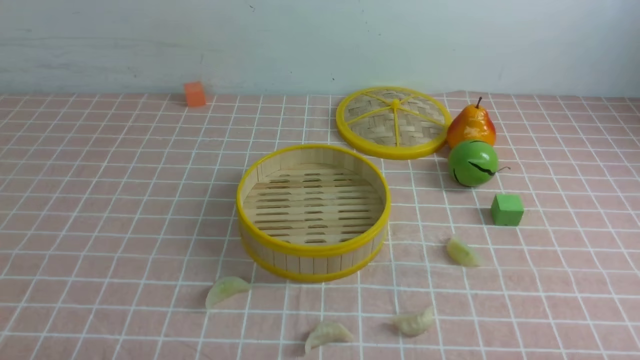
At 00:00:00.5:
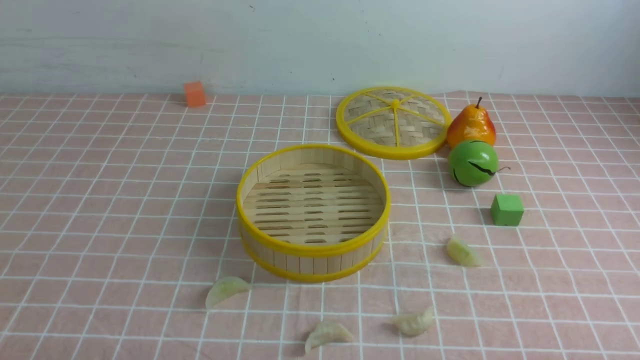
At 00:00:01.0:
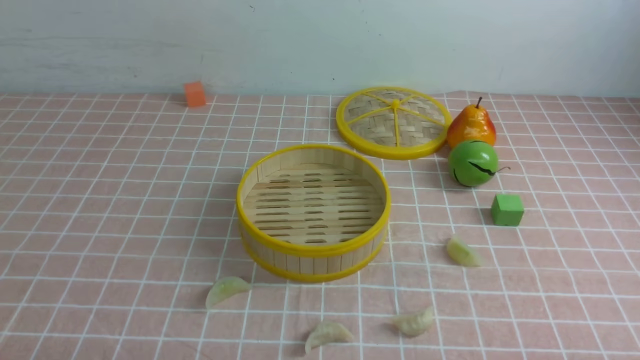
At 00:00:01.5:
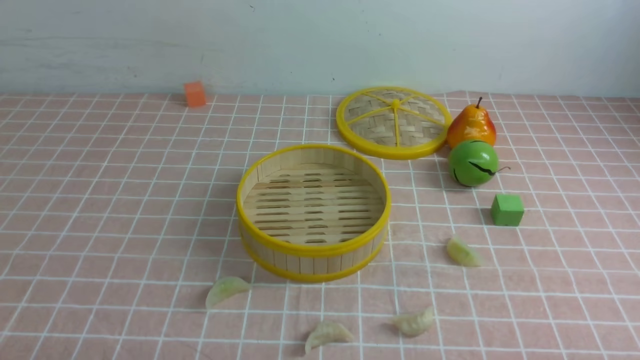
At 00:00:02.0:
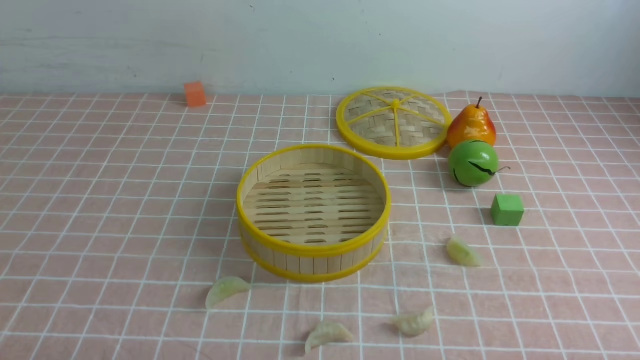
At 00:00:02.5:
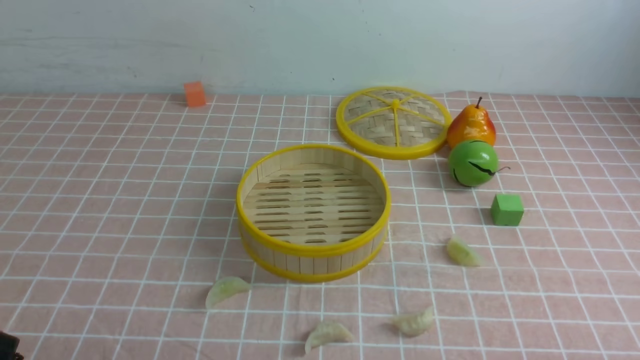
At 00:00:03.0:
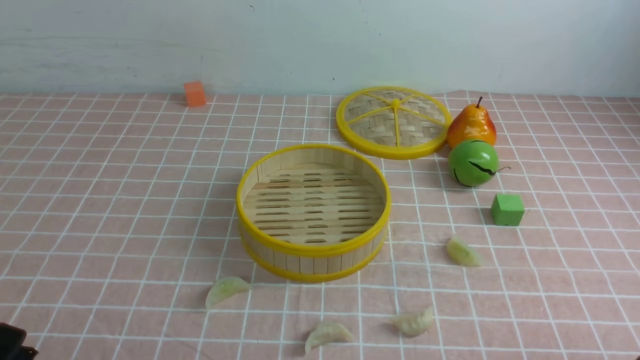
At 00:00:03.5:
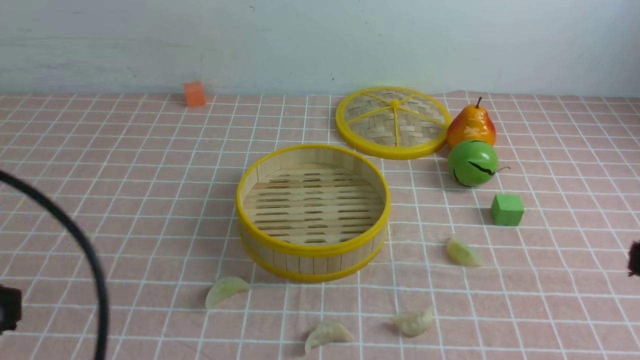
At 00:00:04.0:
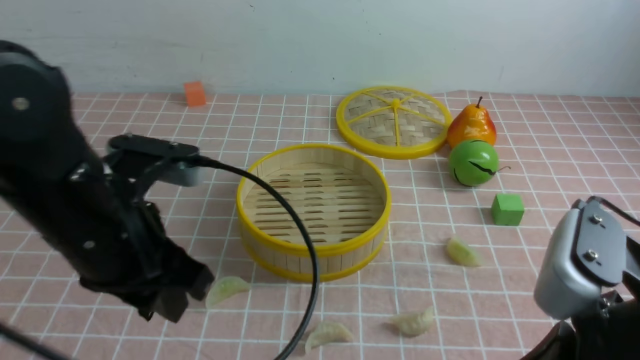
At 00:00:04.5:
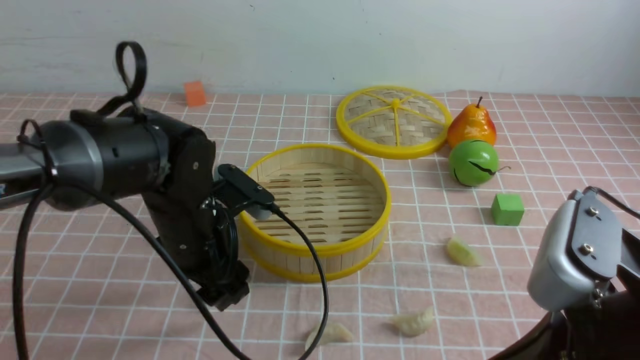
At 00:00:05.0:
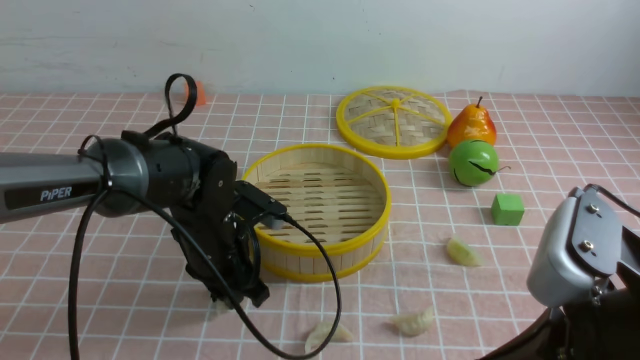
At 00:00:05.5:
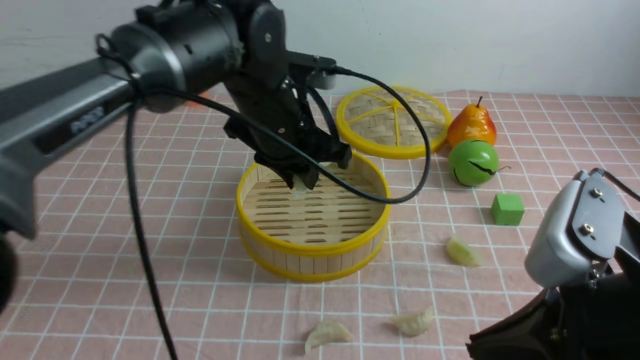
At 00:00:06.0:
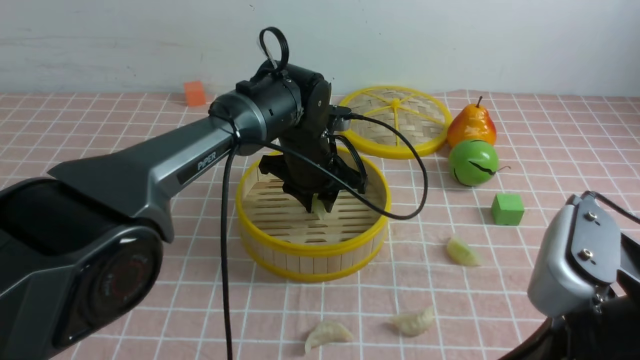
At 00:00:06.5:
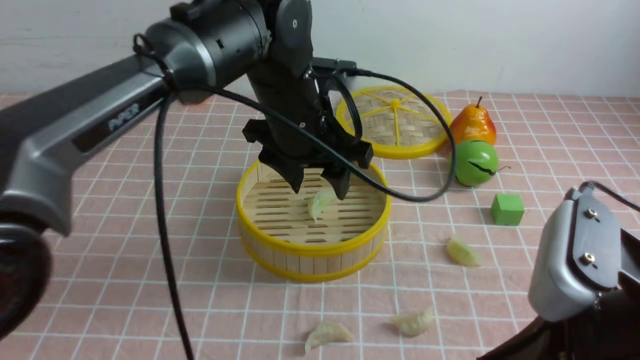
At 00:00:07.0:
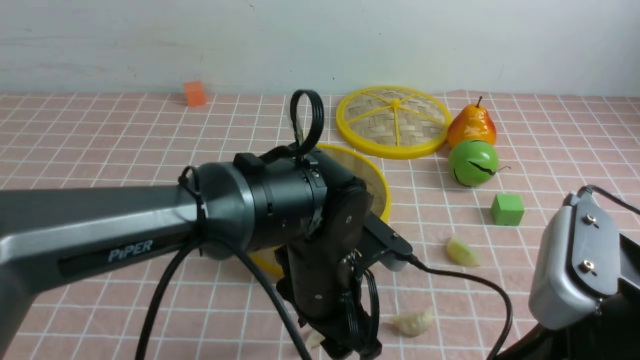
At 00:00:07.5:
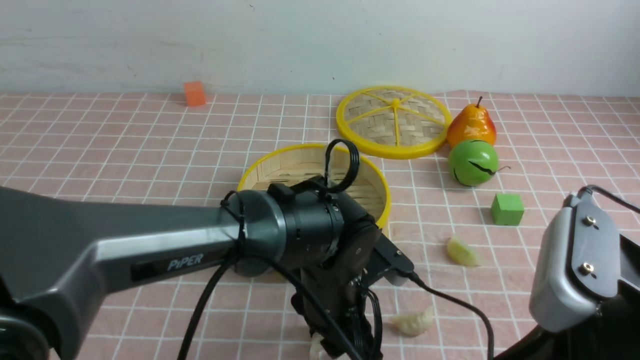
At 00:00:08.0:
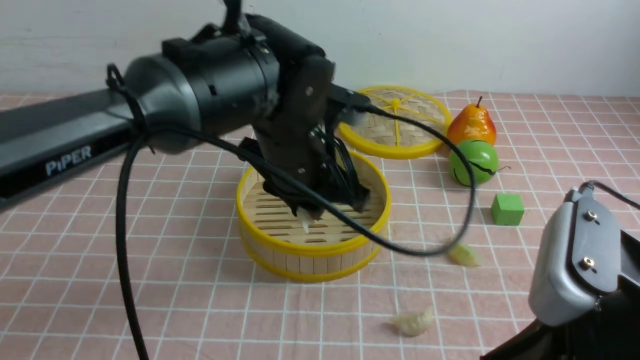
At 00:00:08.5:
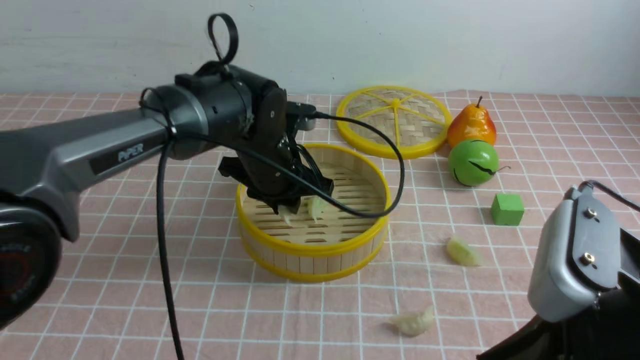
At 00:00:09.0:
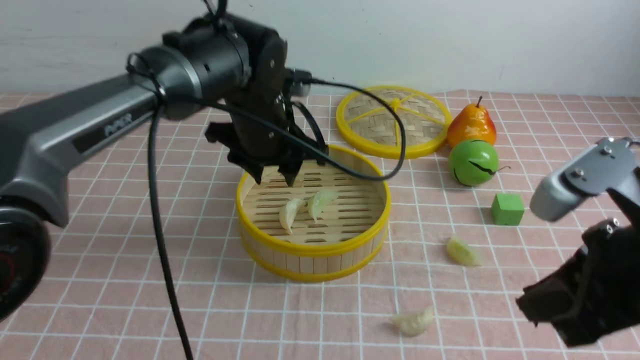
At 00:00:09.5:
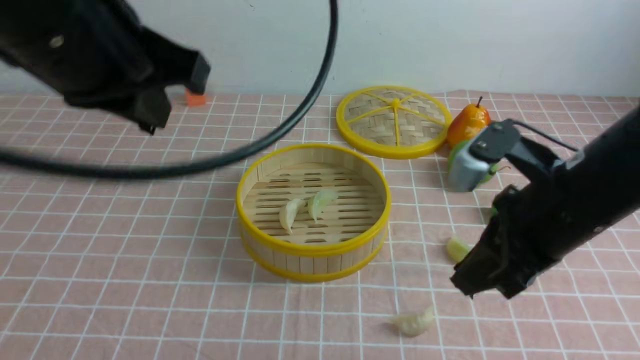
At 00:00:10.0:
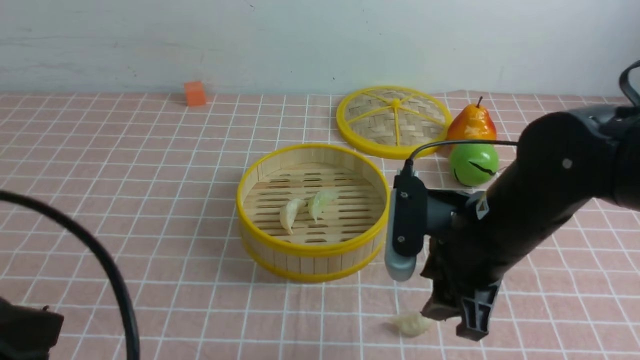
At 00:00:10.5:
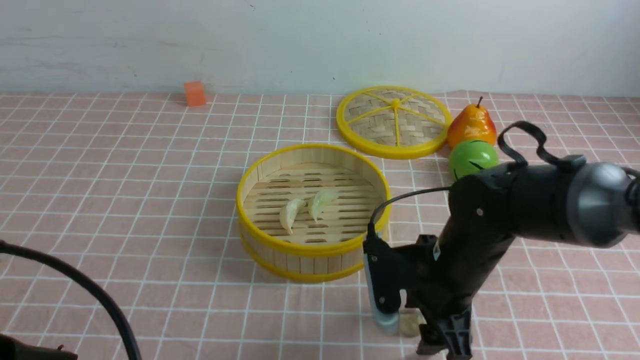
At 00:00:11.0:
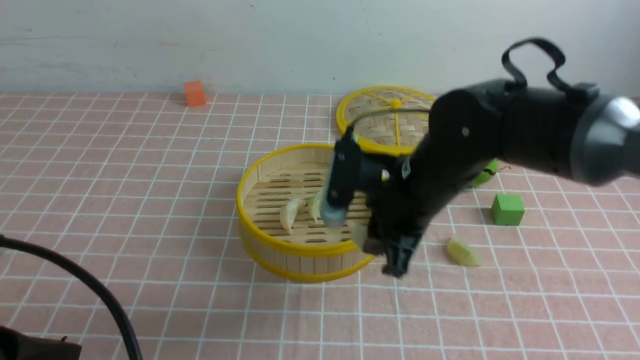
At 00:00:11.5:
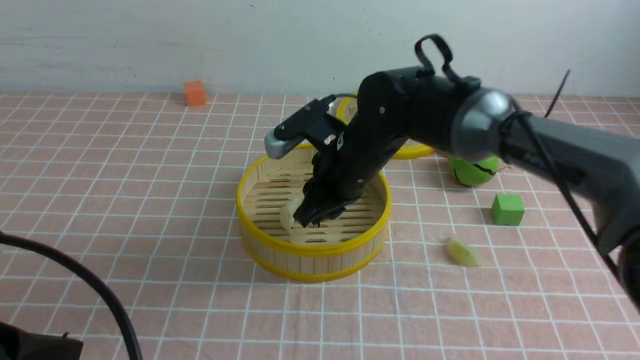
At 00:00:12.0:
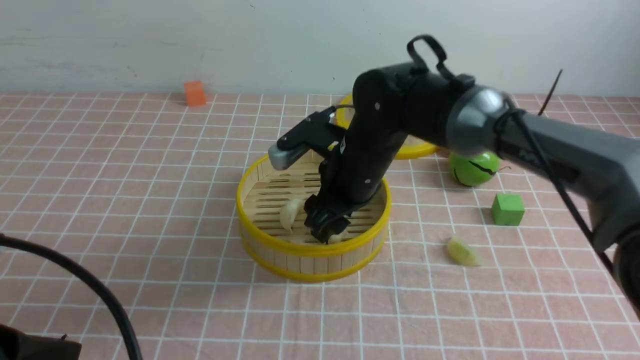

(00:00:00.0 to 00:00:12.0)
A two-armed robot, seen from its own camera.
Task of the whole recording: put the dumplings into the steamer on the table with the pink tablecloth.
Step, 00:00:00.0 - 00:00:05.0: use the left arm to grab a dumpling.
Step, 00:00:05.5 - 00:00:06.0: use the left arm to put the dumpling into the steamer.
Step, 00:00:06.5 - 00:00:07.0: use the left arm to grab a dumpling.
Step, 00:00:07.5 - 00:00:08.5: use the left arm to put the dumpling into the steamer.
Step, 00:00:09.0 - 00:00:10.5: use the right arm to grab a dumpling.
Step, 00:00:11.0 - 00:00:12.0: use the right arm to put the dumpling into the steamer.
00:00:02.0 - 00:00:04.0: The right gripper is displaced upward, to the left and forward by some 20 cm, and closes up. The left gripper moves forward, upward and to the right, approximately 25 cm.
00:00:04.0 - 00:00:06.0: The left gripper heads forward, to the right and downward, covering roughly 30 cm, and opens, then closes once more.
00:00:06.0 - 00:00:08.0: The left gripper moves backward and upward, roughly 15 cm, and opens and closes again.
00:00:08.0 - 00:00:10.0: The right gripper shifts approximately 15 cm forward, and opens, while the left gripper moves backward, to the left and upward, approximately 30 cm, and closes.
00:00:10.0 - 00:00:12.0: The right gripper goes roughly 15 cm forward and to the left.

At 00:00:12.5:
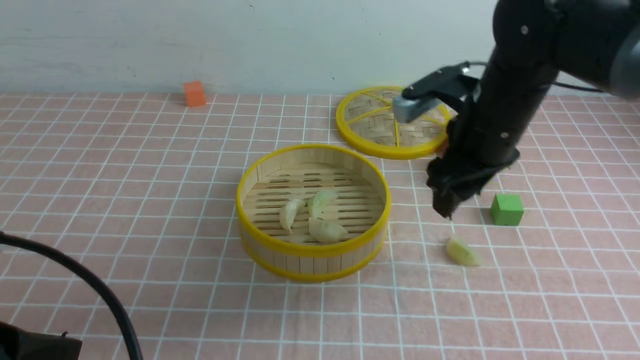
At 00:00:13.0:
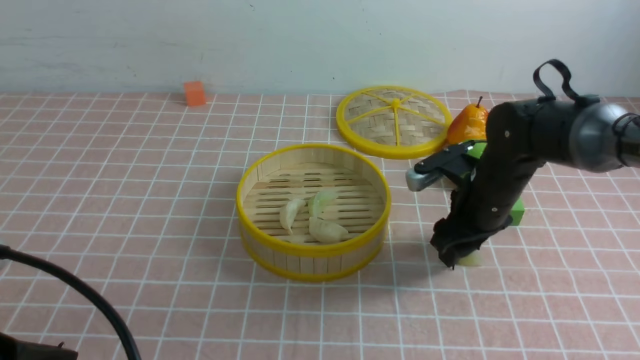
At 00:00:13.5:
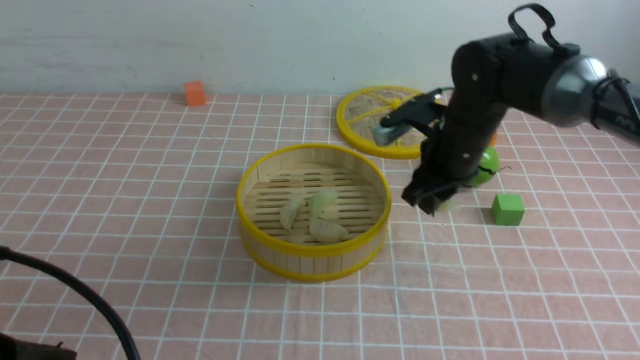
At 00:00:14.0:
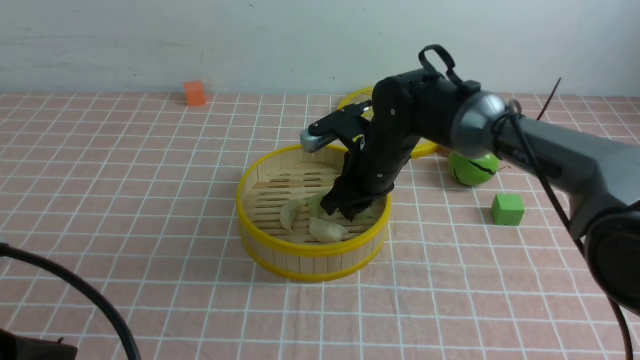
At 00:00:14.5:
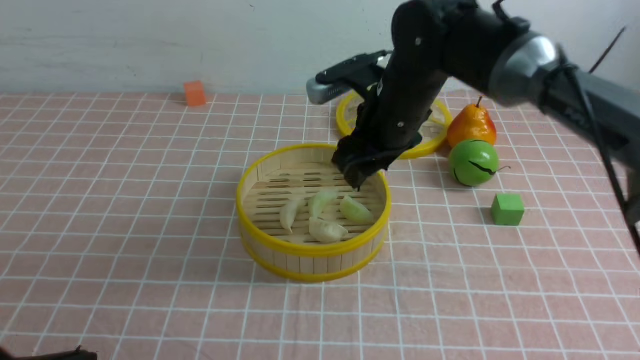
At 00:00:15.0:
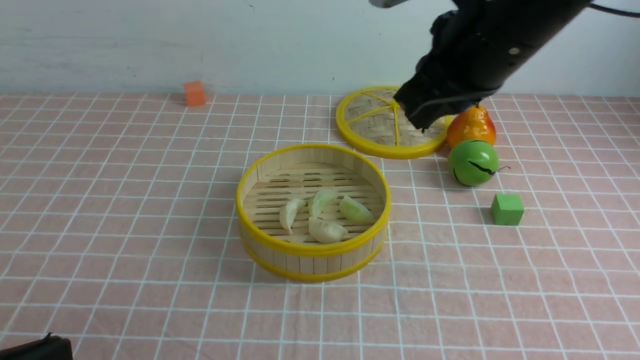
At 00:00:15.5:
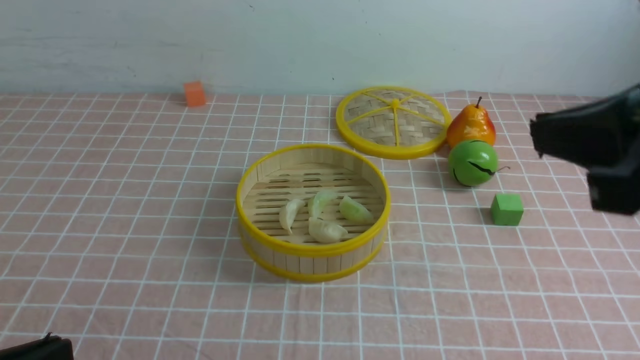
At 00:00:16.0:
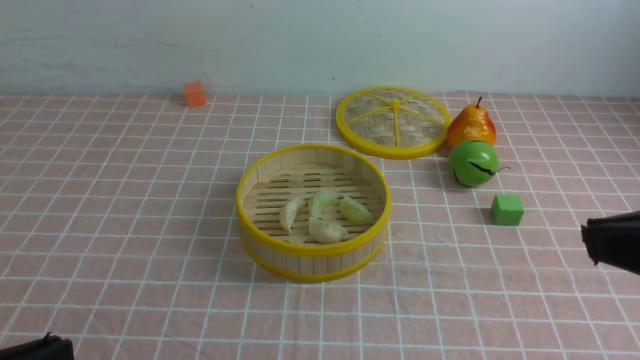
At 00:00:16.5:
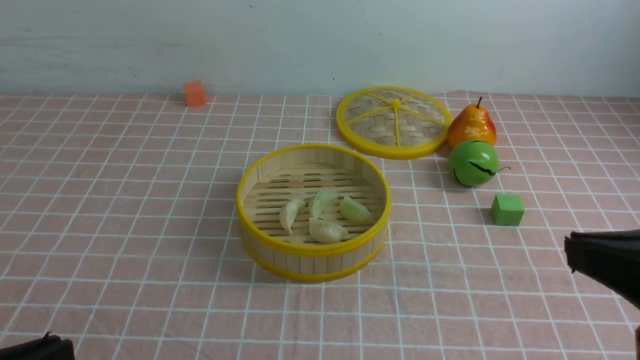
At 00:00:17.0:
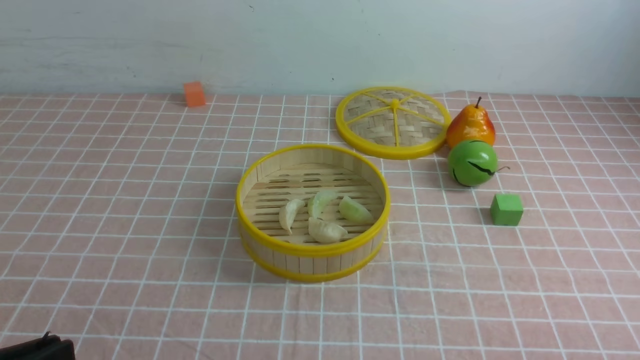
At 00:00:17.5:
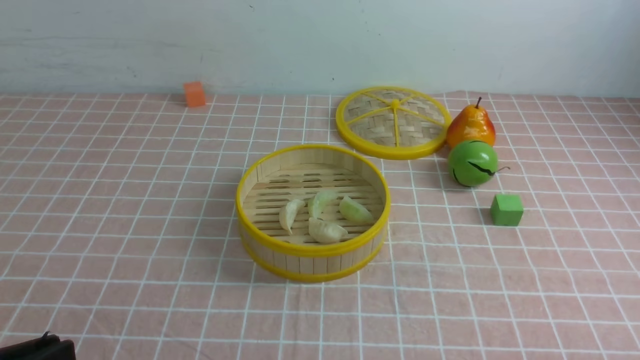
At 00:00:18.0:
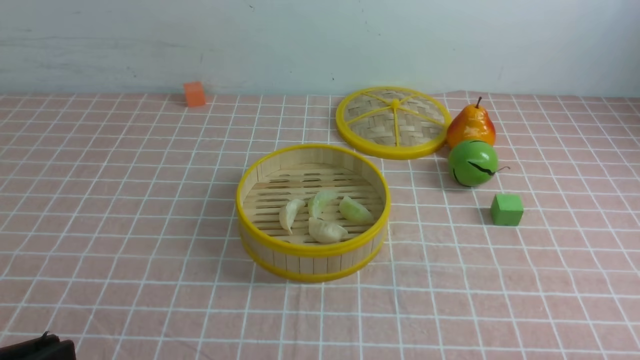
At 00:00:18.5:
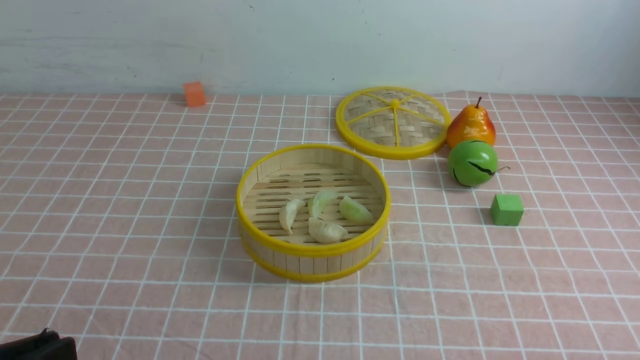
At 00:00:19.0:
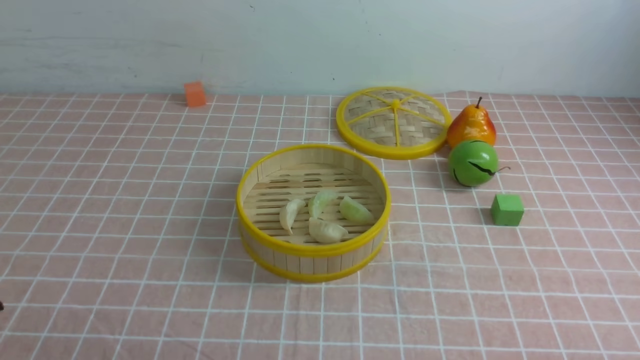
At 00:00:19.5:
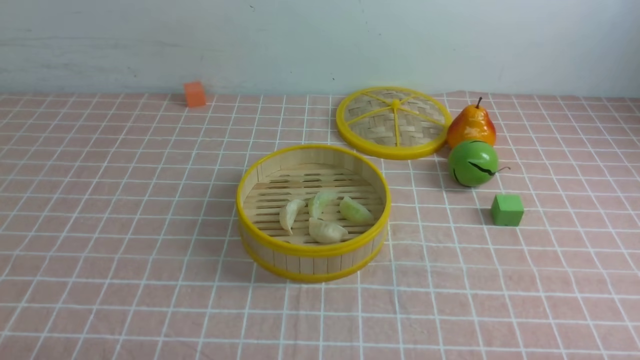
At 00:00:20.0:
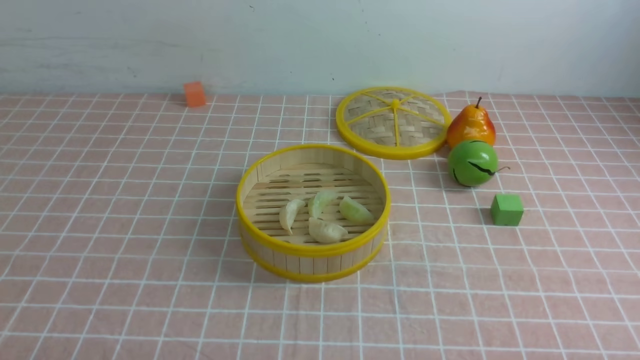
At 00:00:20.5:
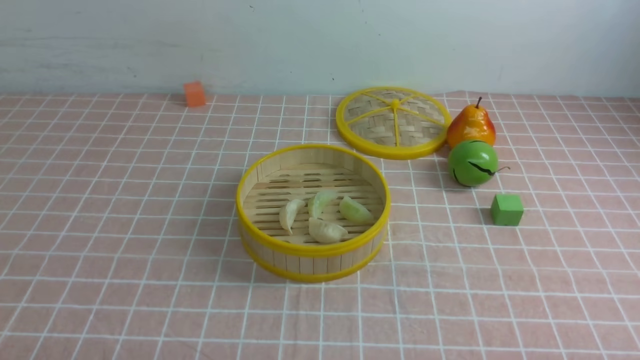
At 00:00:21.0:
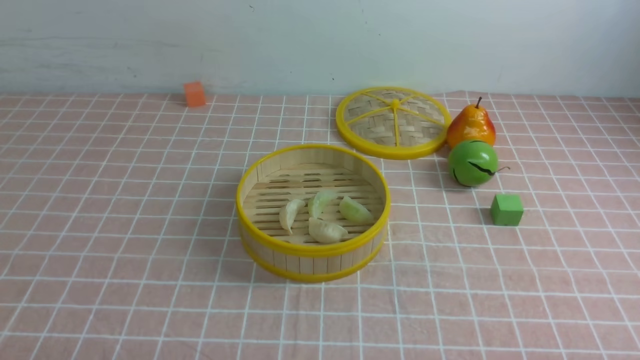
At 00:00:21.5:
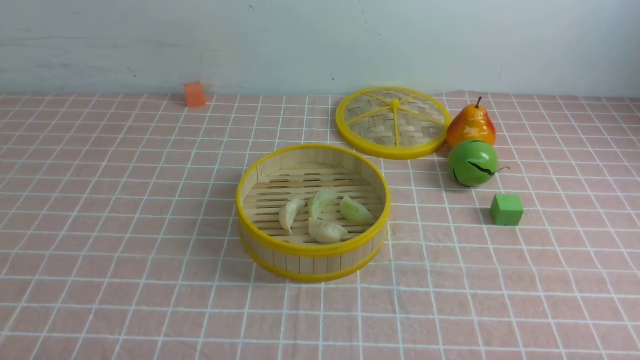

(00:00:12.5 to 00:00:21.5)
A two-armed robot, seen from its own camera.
Task of the whole recording: put the dumplings into the steamer on the table with the pink tablecloth.
Step, 00:00:13.5 - 00:00:14.0: use the right arm to put the dumpling into the steamer.
00:00:12.5 - 00:00:14.5: The right gripper goes approximately 5 cm to the left, and closes, then opens again.
00:00:14.5 - 00:00:17.0: The right gripper travels backward and to the right by about 40 cm, and closes up.
00:00:17.0 - 00:00:19.5: The left gripper moves downward, roughly 10 cm.
